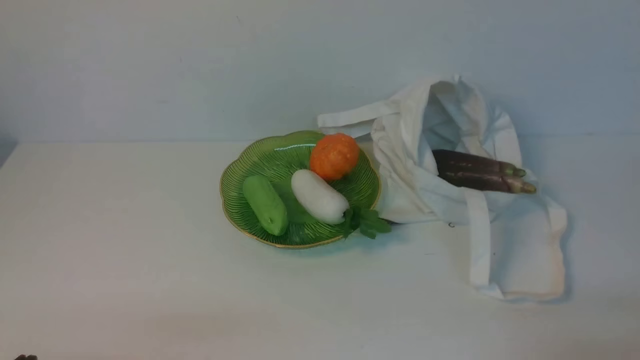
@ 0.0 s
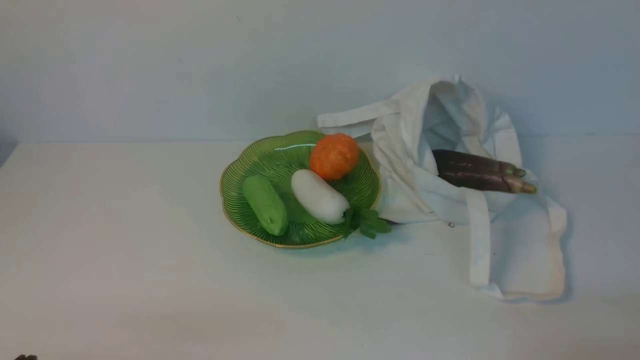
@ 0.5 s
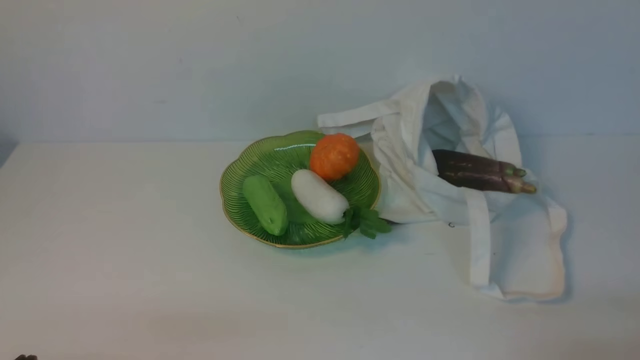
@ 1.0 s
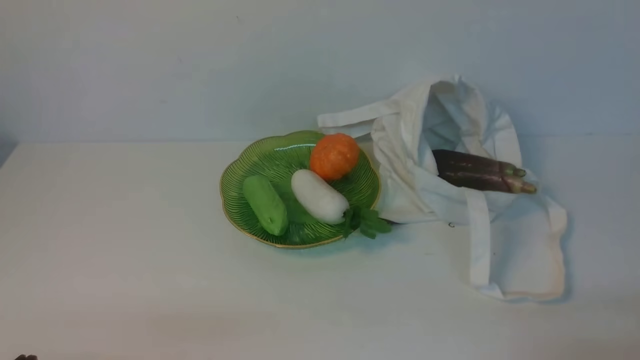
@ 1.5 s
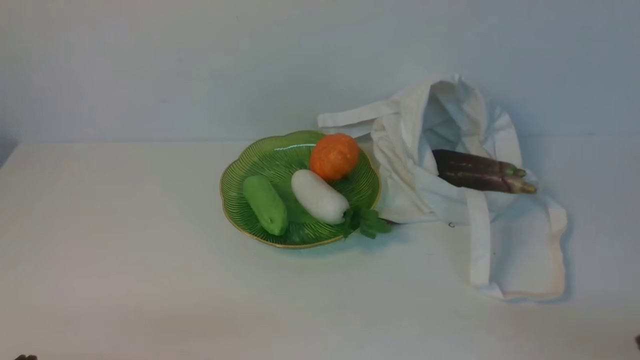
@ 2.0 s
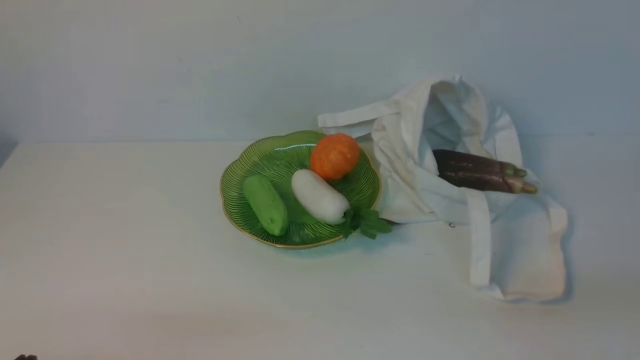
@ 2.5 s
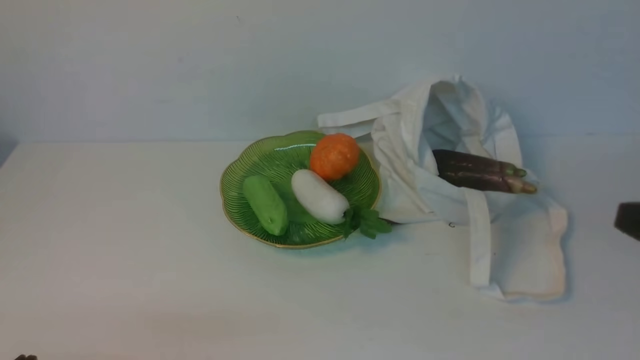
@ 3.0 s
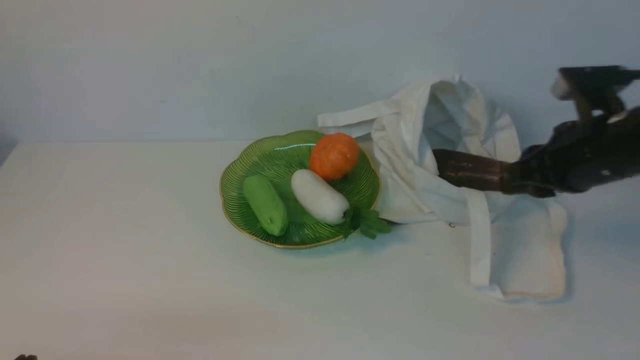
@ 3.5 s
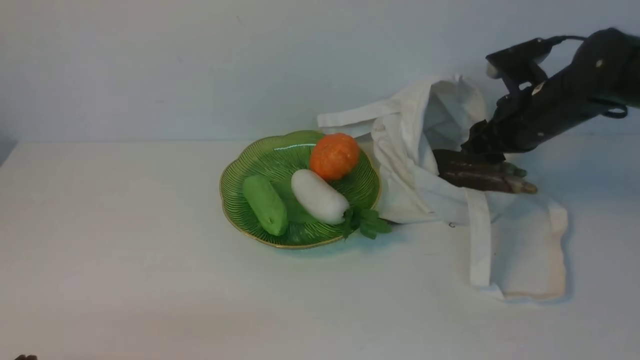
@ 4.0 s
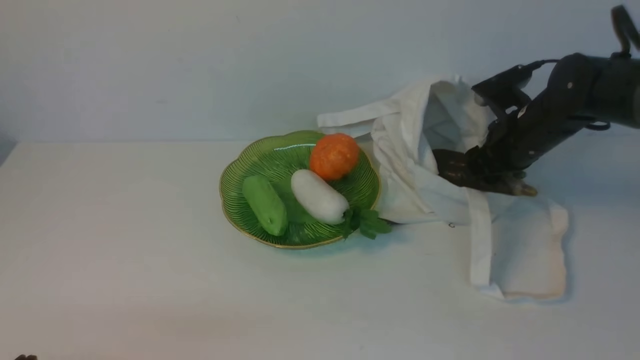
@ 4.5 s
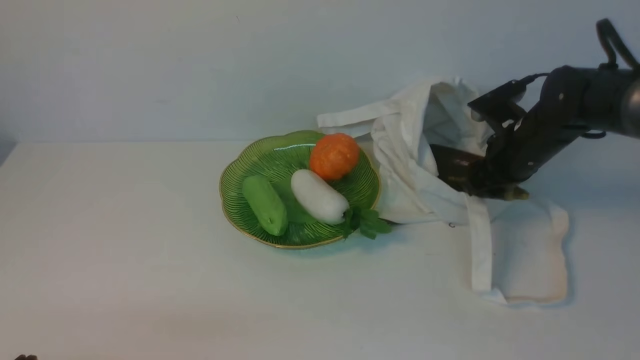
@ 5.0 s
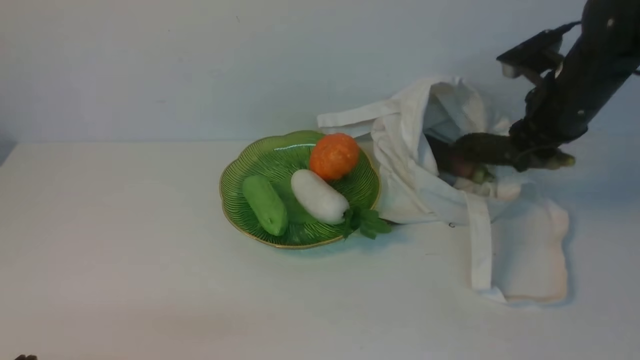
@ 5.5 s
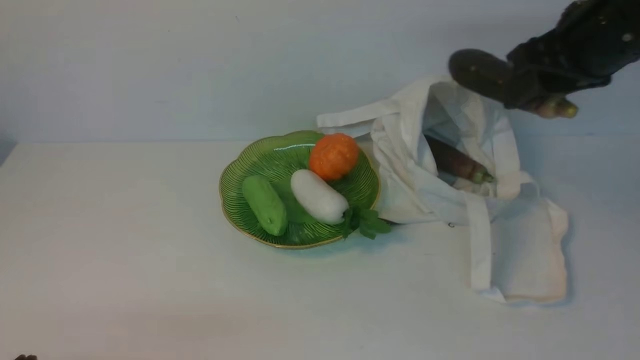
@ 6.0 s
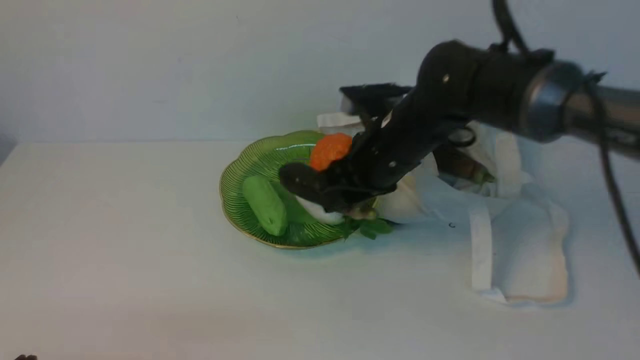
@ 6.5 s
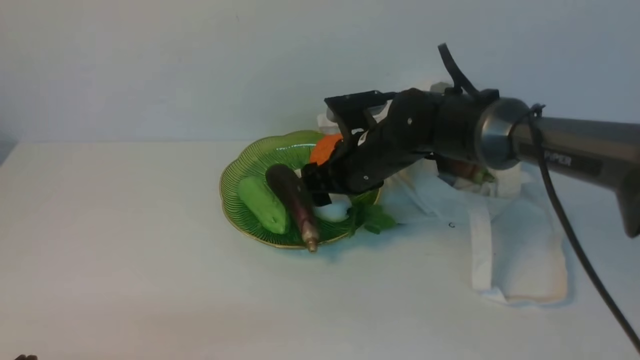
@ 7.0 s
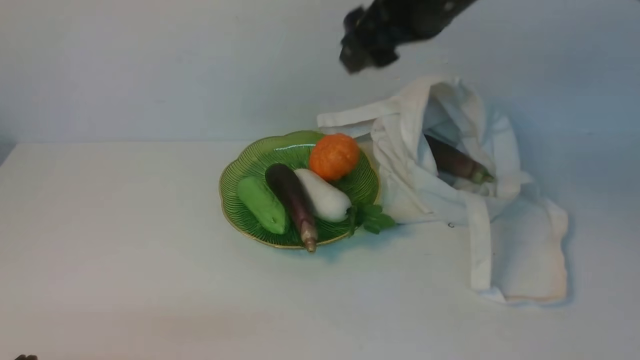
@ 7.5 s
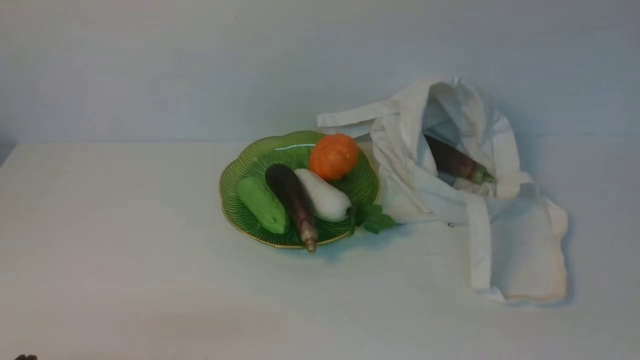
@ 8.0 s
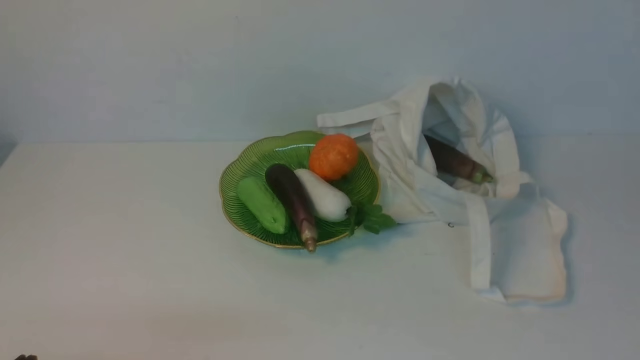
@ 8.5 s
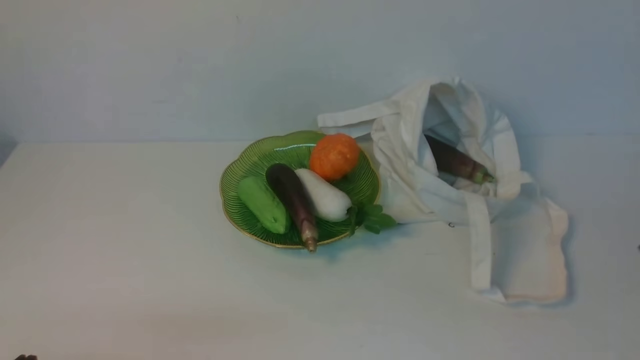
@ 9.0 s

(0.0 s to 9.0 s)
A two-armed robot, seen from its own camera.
Task of the whole recording: take vegetables from cloth bag on white table place on plate.
Step, 0.0 s - 5.0 s: Grasp the eggplant with right gripper.
Step, 5.5 s - 7.0 s: Place the eggplant on the plate with right gripper.
2.0 s - 4.5 s: The right gripper moves forward, roughly 35 cm, and opens.
4.5 s - 7.0 s: The right gripper moves to the left, roughly 20 cm.
7.0 s - 9.0 s: The right gripper moves backward and to the right, some 40 cm, goes upward and returns, approximately 35 cm each way, and closes.

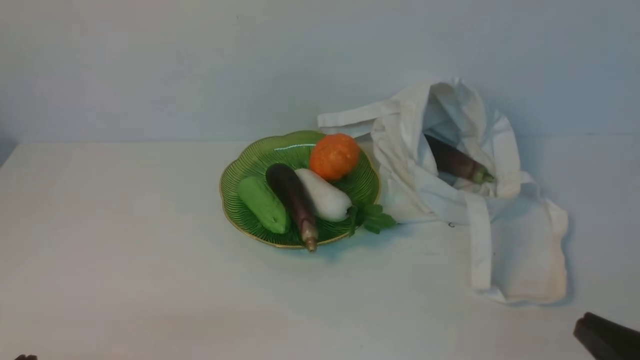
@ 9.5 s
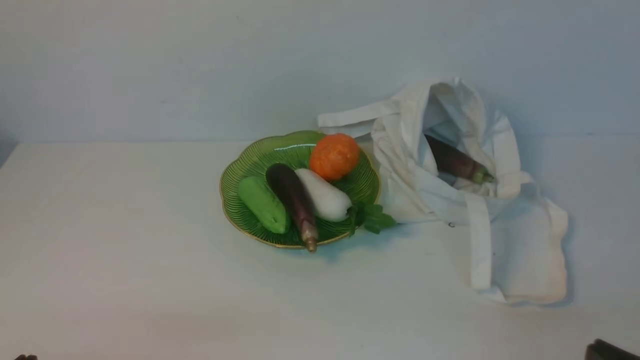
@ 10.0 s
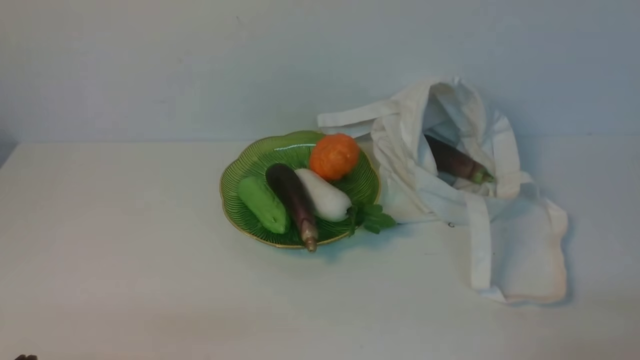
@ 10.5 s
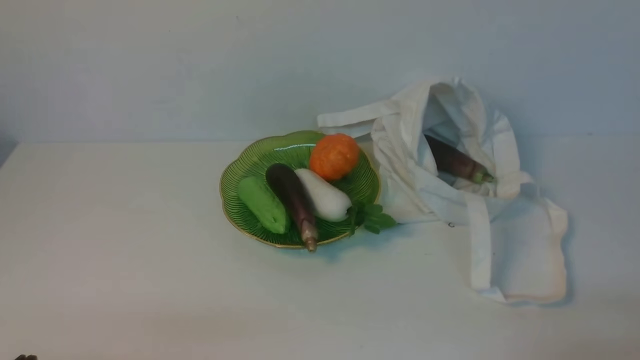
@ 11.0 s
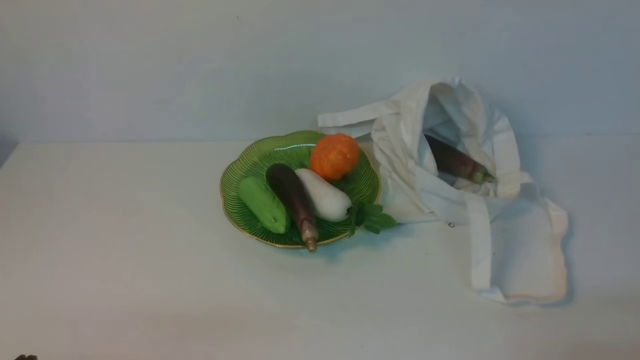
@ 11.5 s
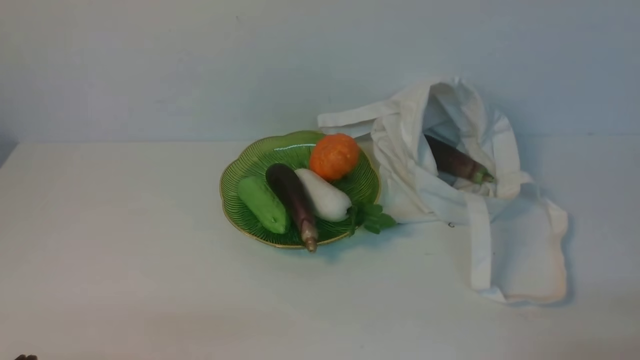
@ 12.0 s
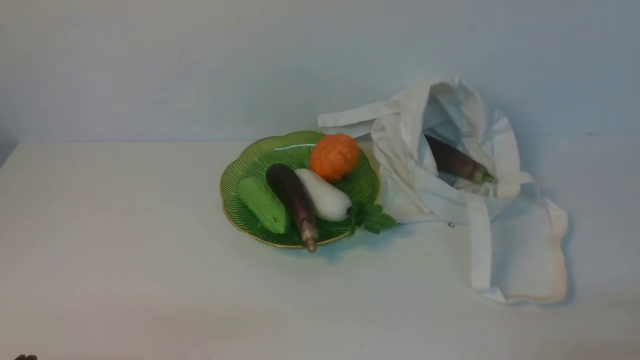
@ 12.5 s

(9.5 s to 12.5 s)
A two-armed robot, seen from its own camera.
Task of the whole recording: take vegetables from cloth bag on white table place on plate.
9.5 s - 11.0 s: The right gripper ends up some 5 cm from where it was.
11.0 s - 12.5 s: Both grippers stay about where they are.

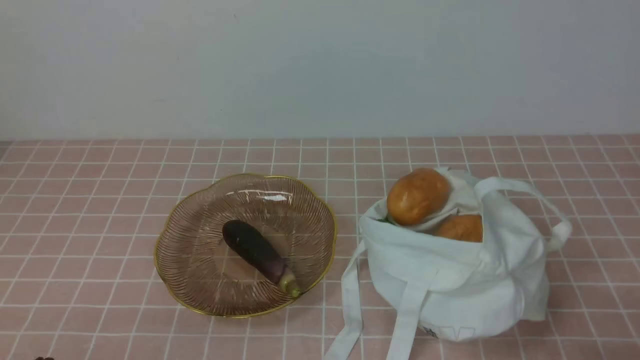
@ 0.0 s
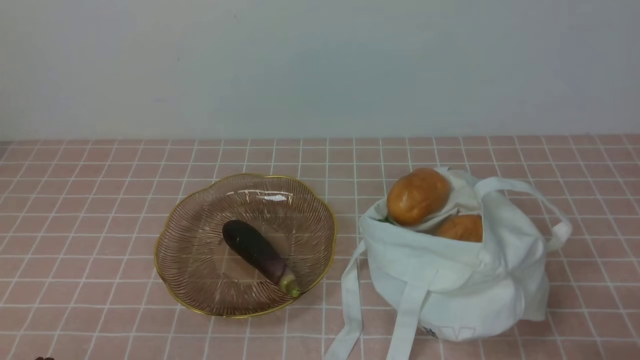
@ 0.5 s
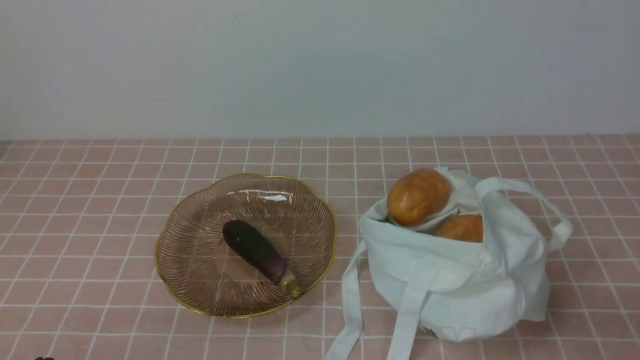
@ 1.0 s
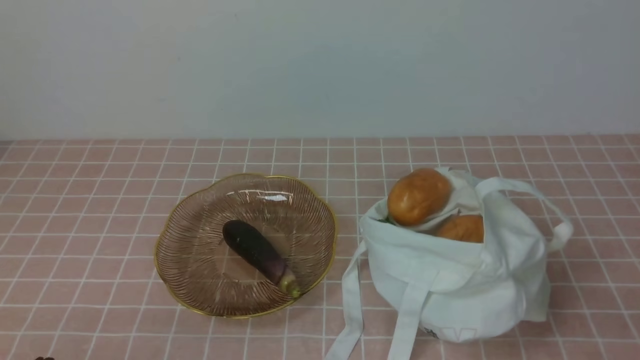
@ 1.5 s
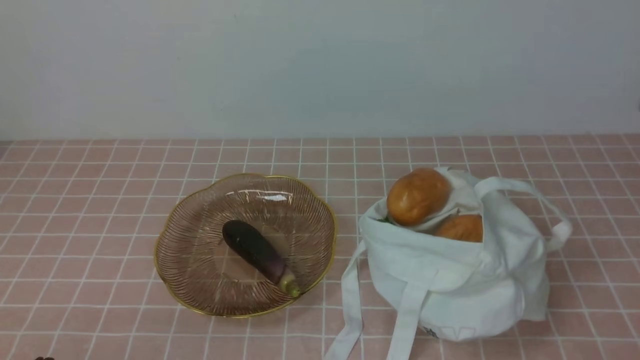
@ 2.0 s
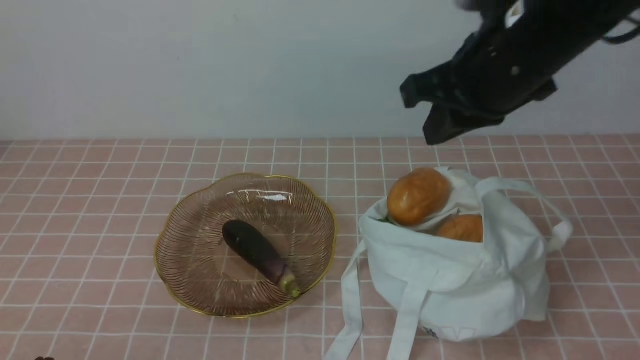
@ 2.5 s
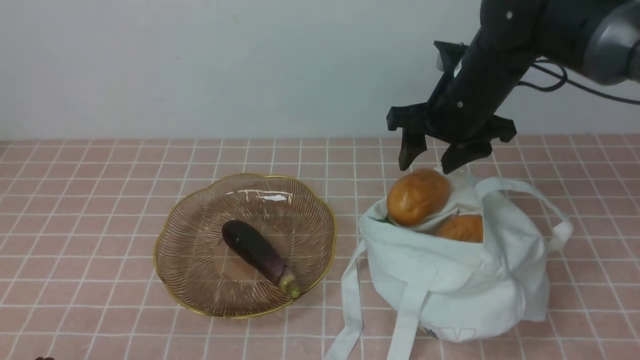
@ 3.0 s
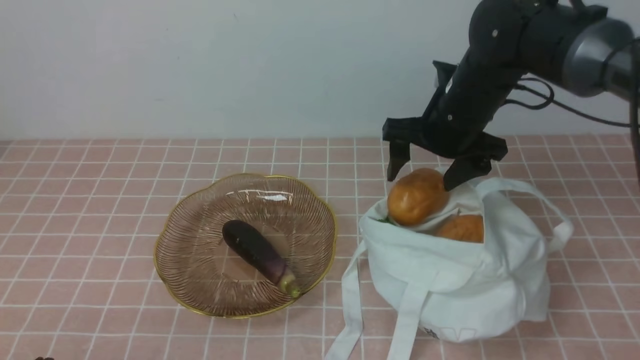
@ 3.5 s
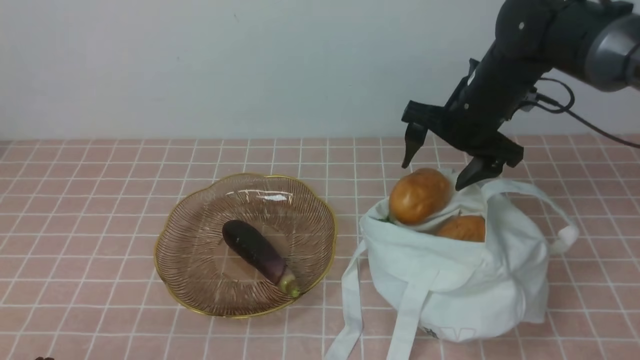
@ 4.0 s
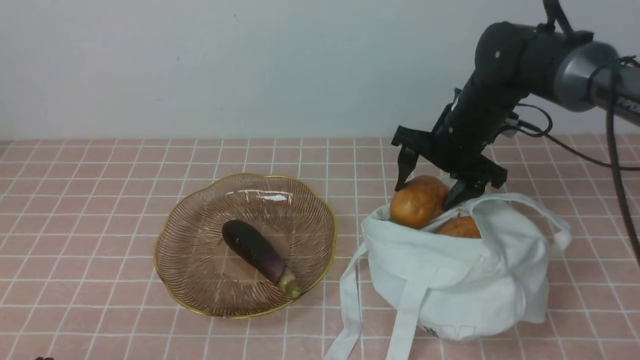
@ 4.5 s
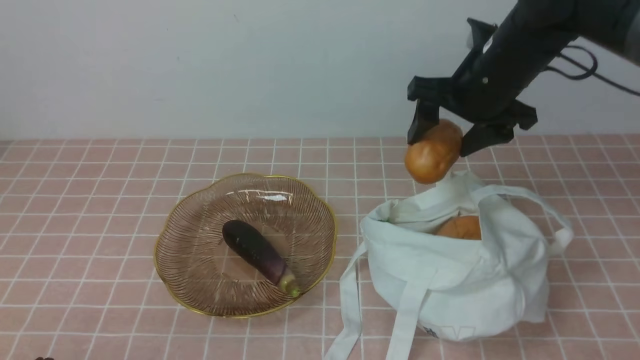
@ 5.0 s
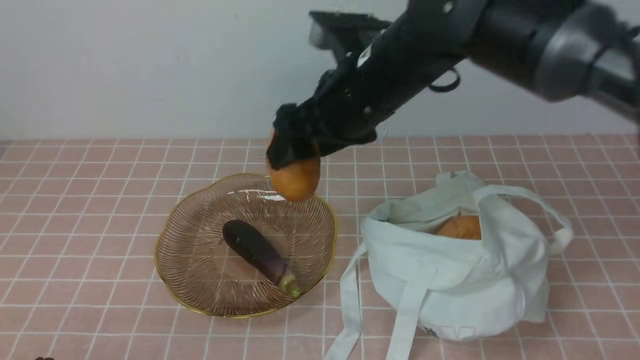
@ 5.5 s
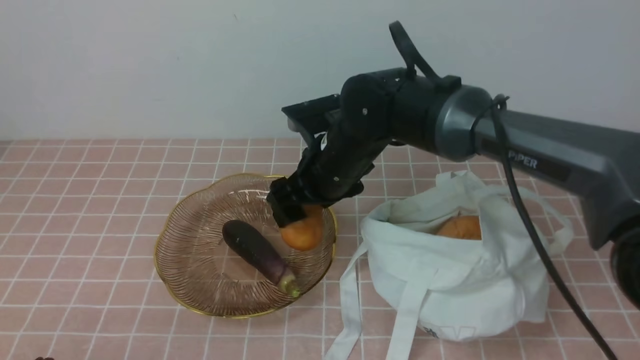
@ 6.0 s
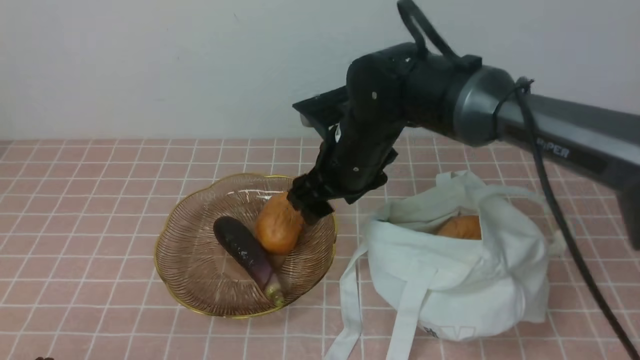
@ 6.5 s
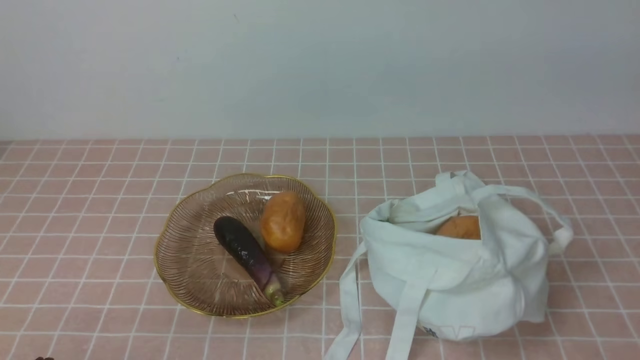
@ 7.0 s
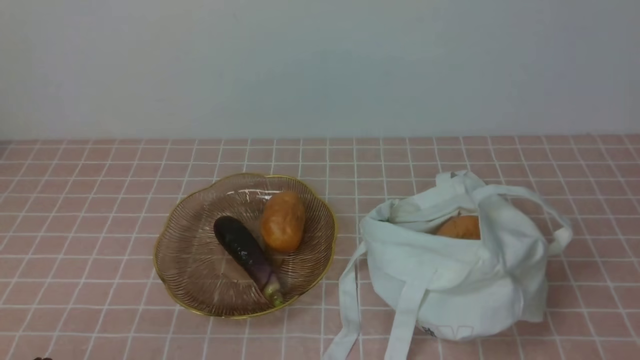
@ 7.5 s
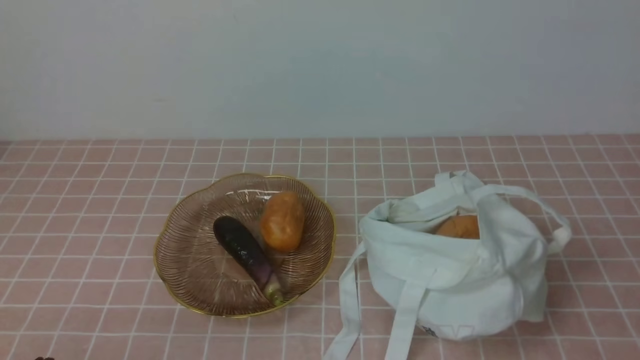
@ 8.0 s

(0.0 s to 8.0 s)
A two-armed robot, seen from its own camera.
Task of the whole recording: take vegetables from bag on pink coffee tablecloth place on plate.
Step, 0.0 s - 4.5 s: Grasp the potato with right gripper.
Step, 5.0 s - 6.5 s: Place the potato on the plate with right gripper.
2.0 s - 4.0 s: The right gripper goes approximately 30 cm forward and downward, and opens its fingers.
4.0 s - 6.0 s: The right gripper moves to the left, approximately 15 cm.
6.0 s - 8.0 s: The right gripper shifts about 50 cm backward and to the right, and closes up.
